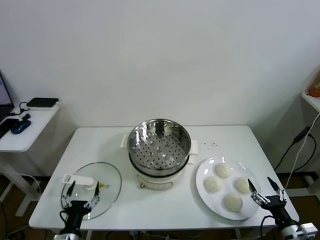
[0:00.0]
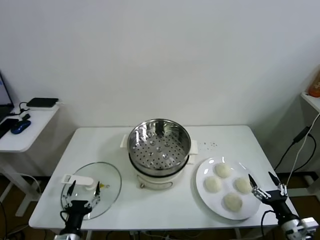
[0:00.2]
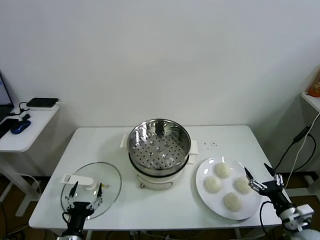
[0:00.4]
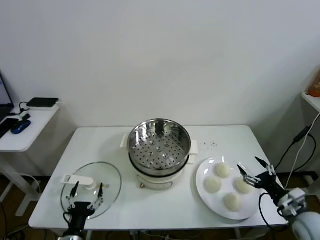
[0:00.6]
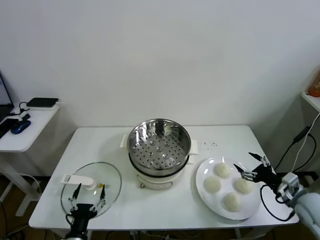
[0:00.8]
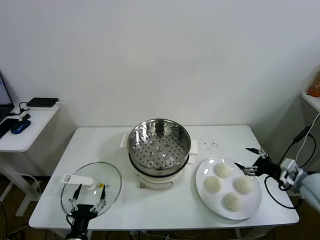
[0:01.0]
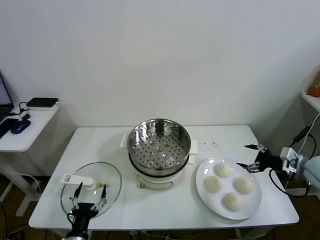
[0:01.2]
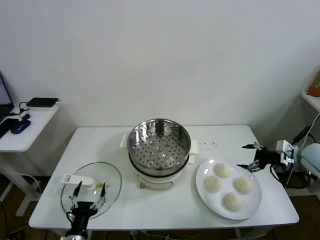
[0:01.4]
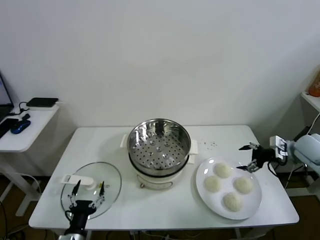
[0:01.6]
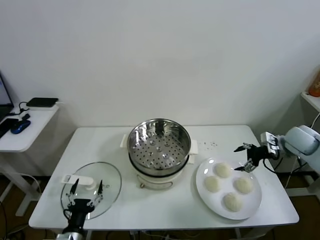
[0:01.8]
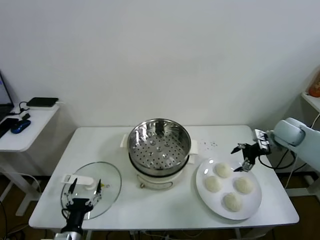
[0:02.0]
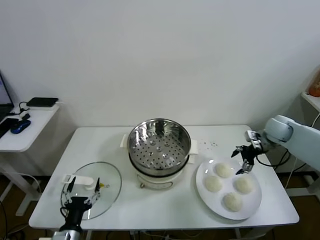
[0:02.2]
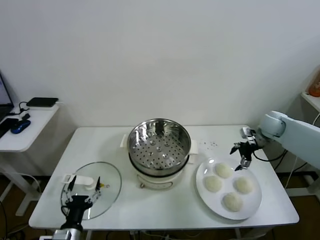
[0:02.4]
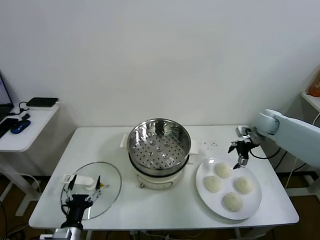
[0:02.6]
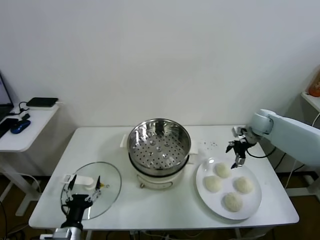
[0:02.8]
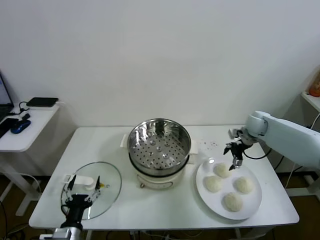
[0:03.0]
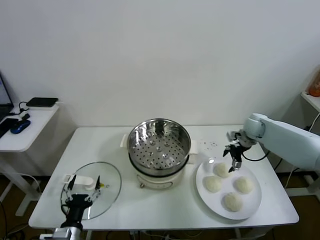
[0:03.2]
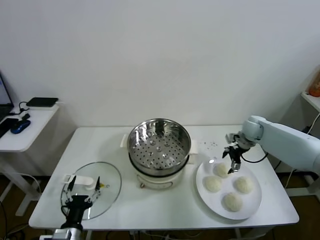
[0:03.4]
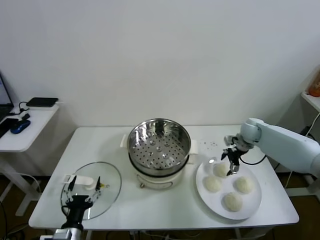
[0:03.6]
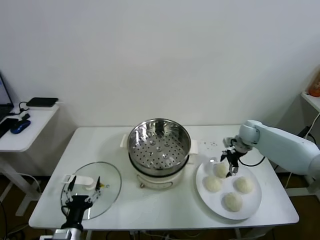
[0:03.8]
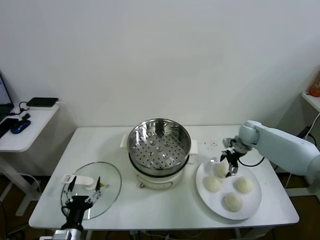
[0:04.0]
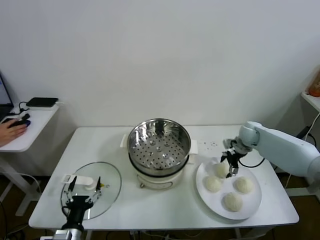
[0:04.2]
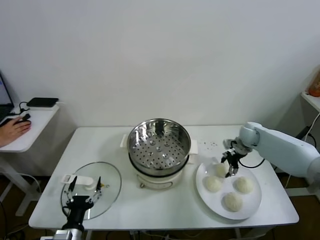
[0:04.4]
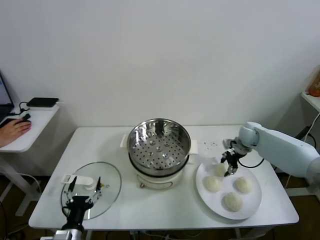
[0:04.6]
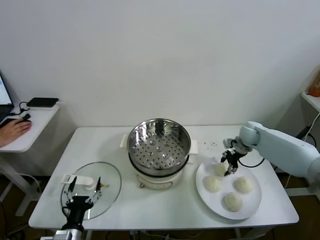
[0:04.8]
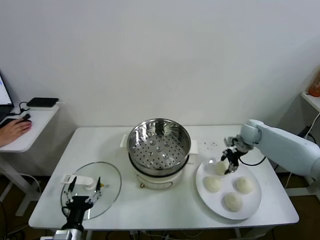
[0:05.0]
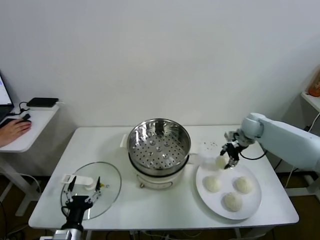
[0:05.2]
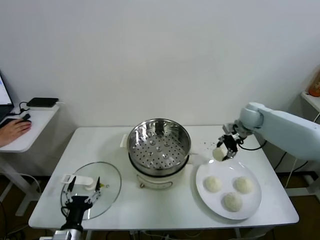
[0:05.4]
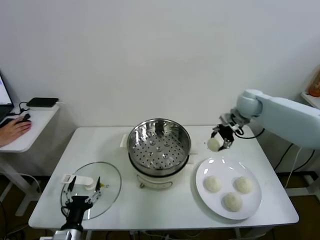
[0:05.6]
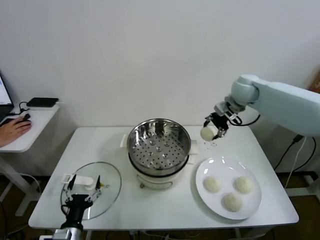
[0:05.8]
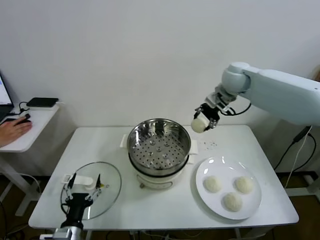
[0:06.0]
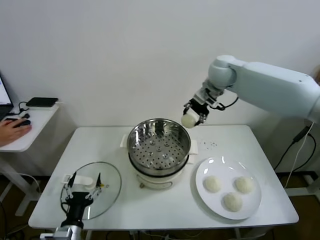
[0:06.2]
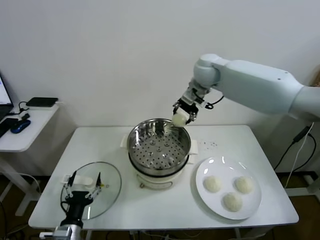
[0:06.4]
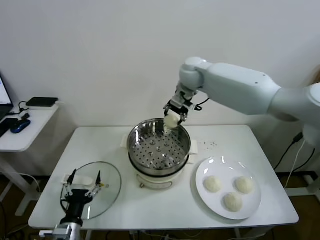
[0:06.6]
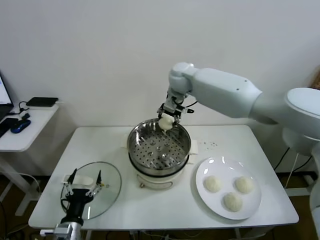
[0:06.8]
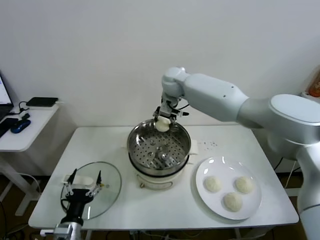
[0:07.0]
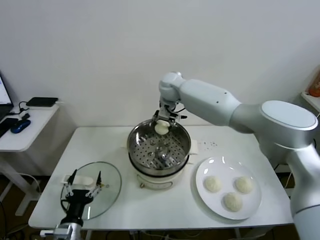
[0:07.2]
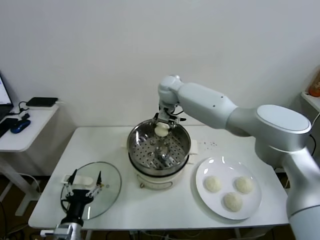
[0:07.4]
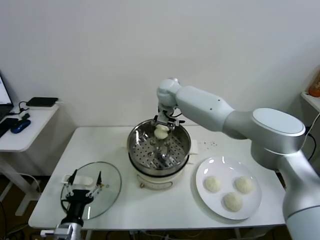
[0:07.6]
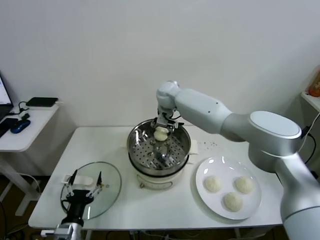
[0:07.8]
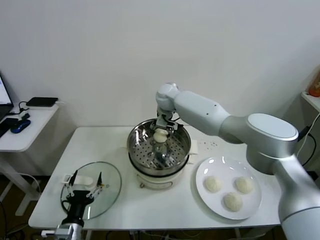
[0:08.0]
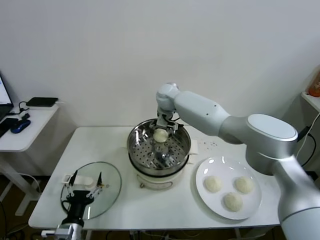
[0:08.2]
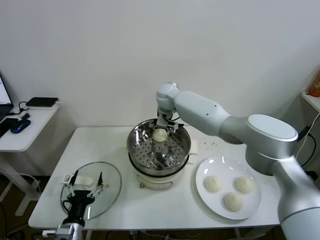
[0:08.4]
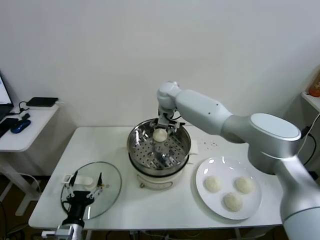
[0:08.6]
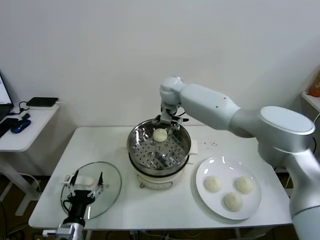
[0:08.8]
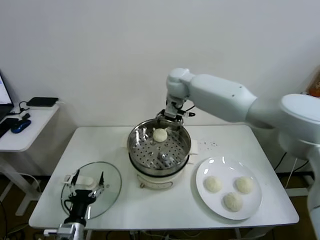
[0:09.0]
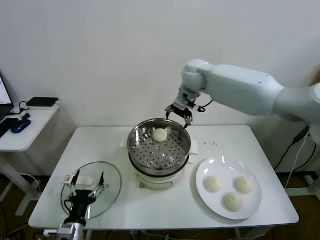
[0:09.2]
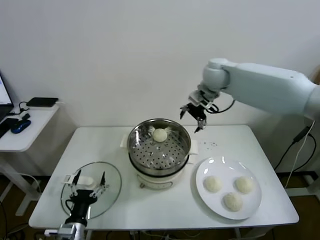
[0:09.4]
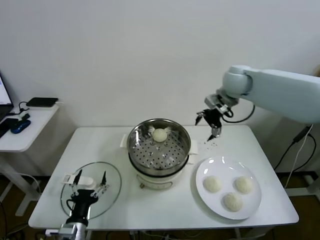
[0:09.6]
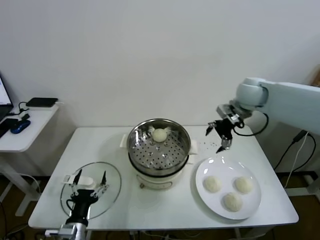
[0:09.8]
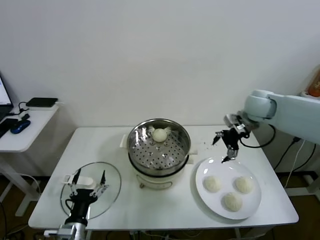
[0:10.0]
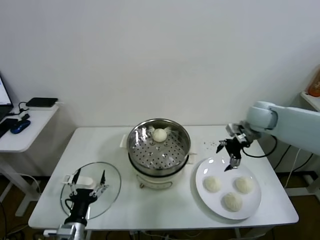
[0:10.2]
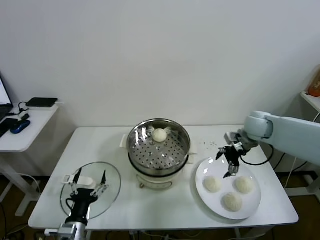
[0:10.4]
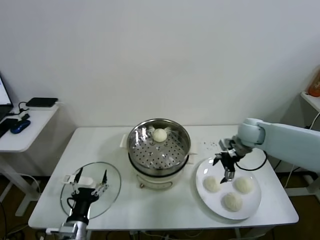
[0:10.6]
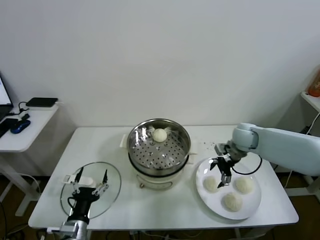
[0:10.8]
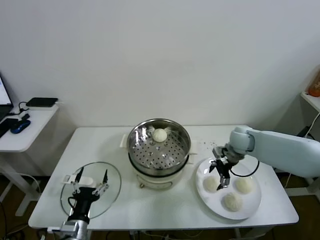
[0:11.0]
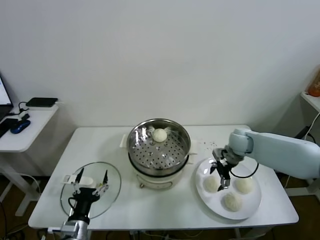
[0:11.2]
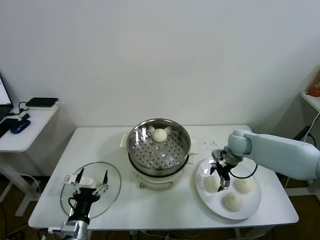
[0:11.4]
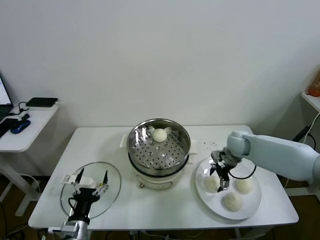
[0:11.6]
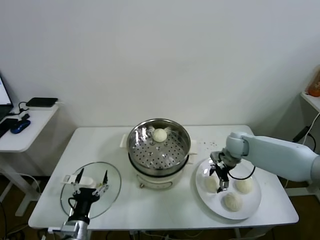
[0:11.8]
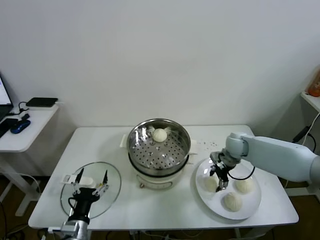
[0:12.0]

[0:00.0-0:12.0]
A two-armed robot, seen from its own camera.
Task of the whole recording: take steamed baozi put them in steamer.
Step, 0.0 to 4.6 s: Grasp the baozi in the plate with right gripper.
Step, 4.8 to 8.4 s: Place the baozi on the steamer with right gripper.
1.6 to 3.0 s: The right gripper goes some 15 cm forward and to the left.
3.0 to 4.4 s: The right gripper closes its fingers.
4.4 to 6.0 s: The right gripper goes about 30 cm upward and to the left.
6.0 to 7.6 s: The right gripper is displaced to the left and downward by about 20 cm.
7.6 to 9.0 s: The right gripper goes about 10 cm upward and to the right, and opens.
9.0 to 10.4 s: The right gripper is displaced to the right and downward by roughly 30 cm.
10.4 to 12.0 s: The right gripper goes approximately 10 cm downward, and closes its fingers.

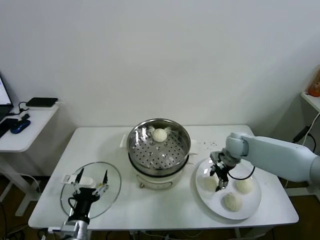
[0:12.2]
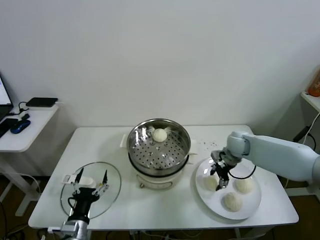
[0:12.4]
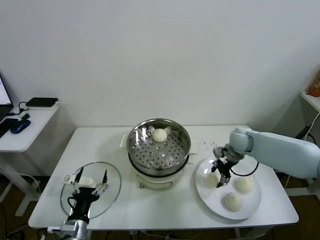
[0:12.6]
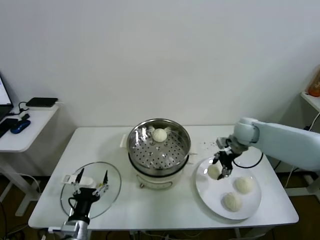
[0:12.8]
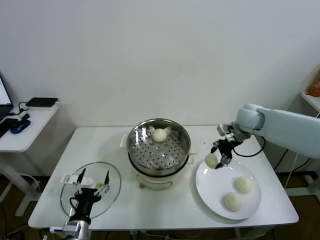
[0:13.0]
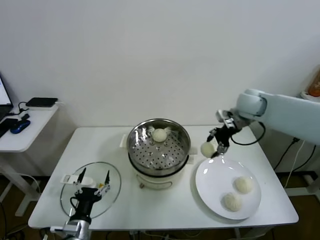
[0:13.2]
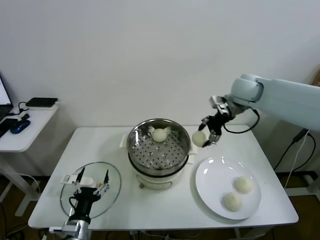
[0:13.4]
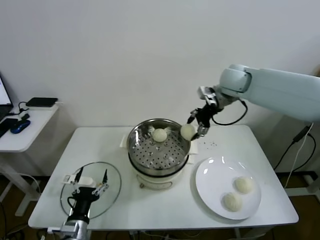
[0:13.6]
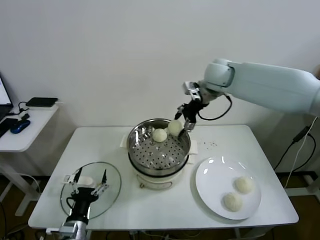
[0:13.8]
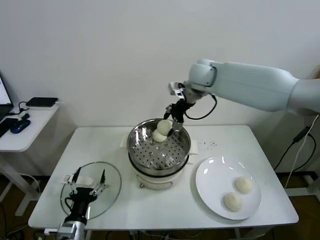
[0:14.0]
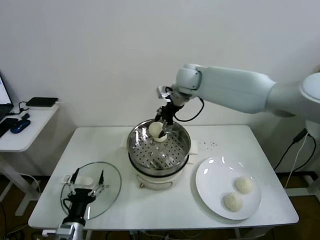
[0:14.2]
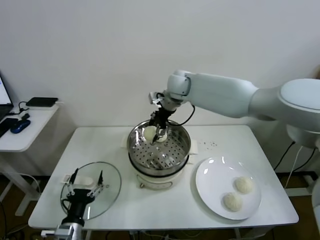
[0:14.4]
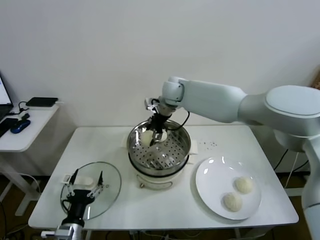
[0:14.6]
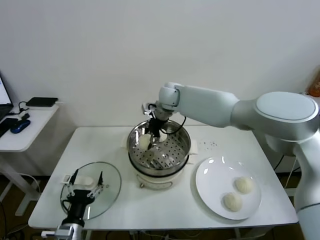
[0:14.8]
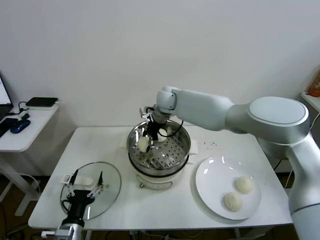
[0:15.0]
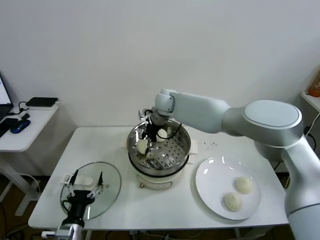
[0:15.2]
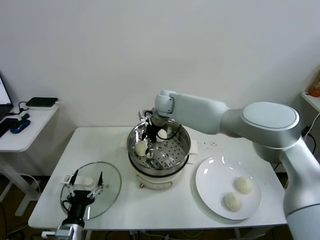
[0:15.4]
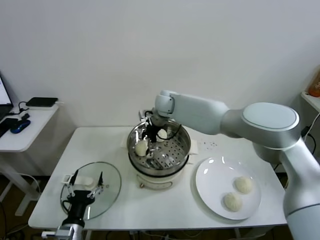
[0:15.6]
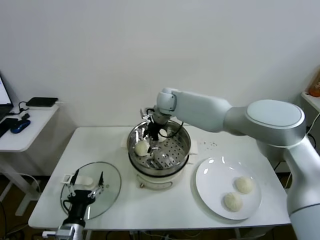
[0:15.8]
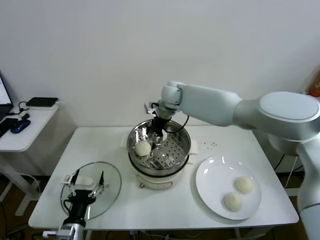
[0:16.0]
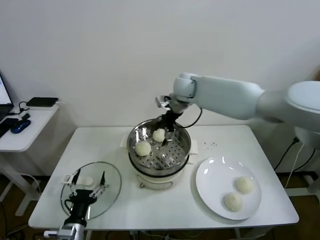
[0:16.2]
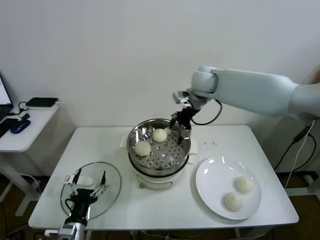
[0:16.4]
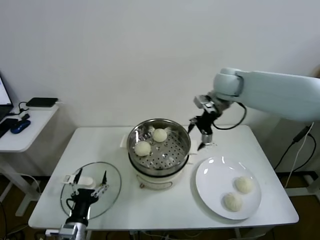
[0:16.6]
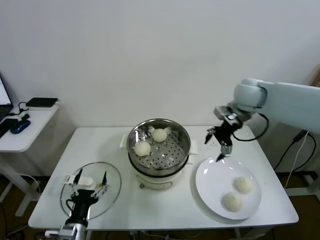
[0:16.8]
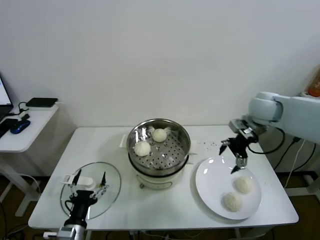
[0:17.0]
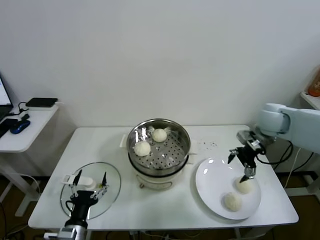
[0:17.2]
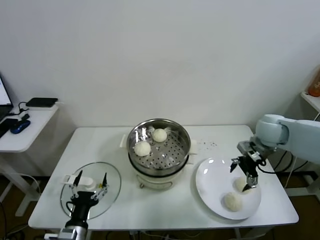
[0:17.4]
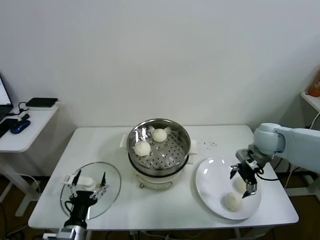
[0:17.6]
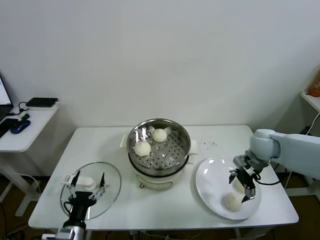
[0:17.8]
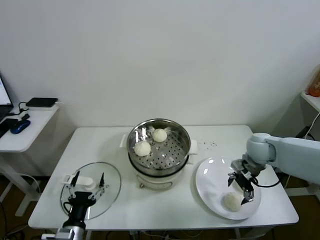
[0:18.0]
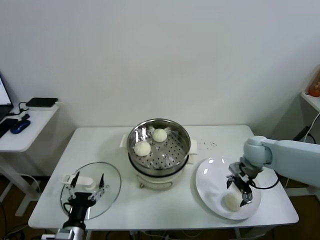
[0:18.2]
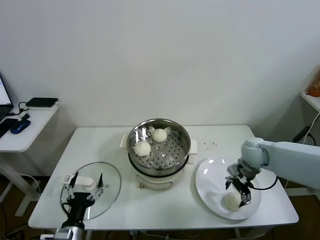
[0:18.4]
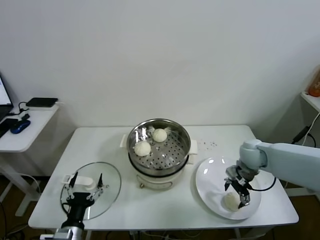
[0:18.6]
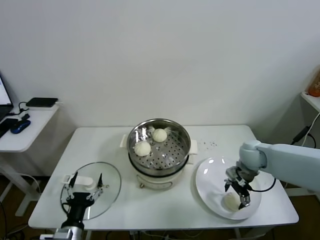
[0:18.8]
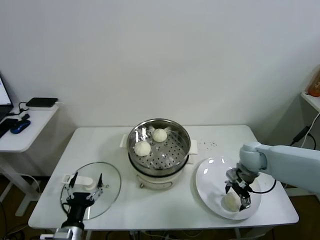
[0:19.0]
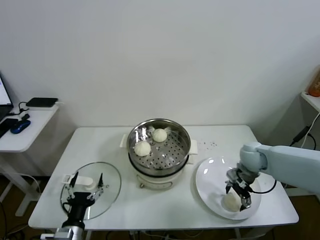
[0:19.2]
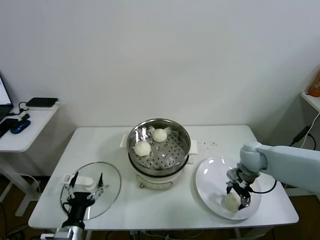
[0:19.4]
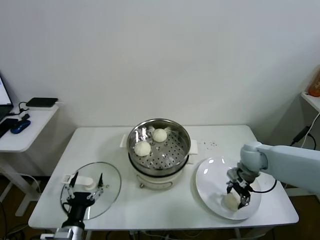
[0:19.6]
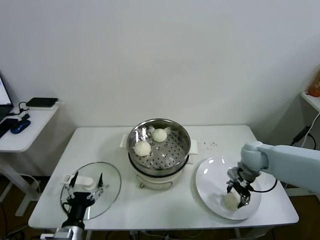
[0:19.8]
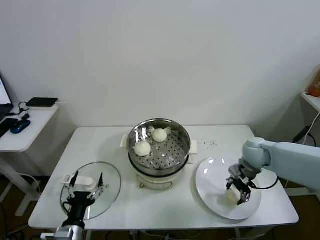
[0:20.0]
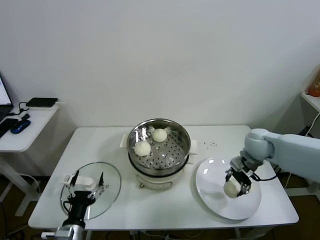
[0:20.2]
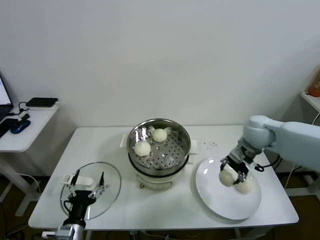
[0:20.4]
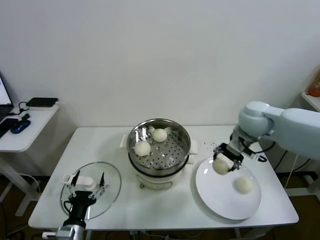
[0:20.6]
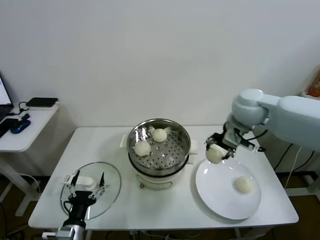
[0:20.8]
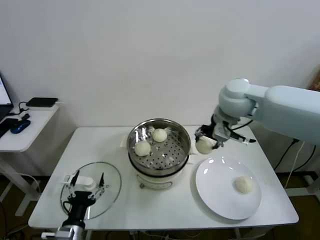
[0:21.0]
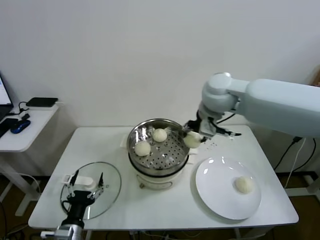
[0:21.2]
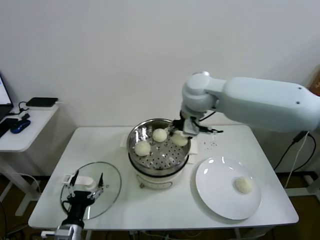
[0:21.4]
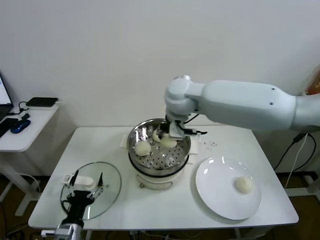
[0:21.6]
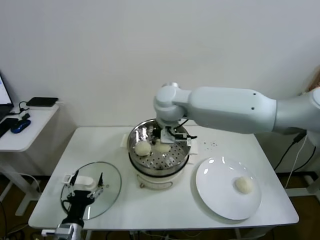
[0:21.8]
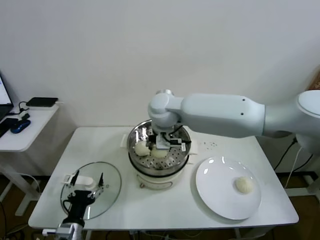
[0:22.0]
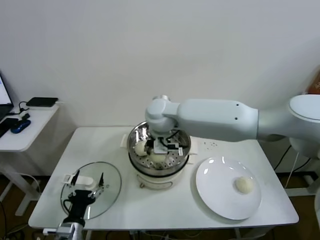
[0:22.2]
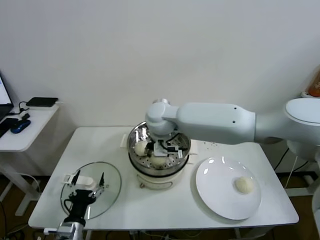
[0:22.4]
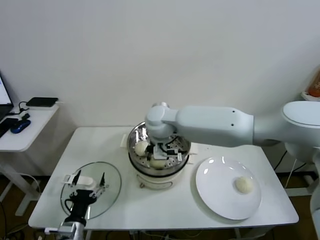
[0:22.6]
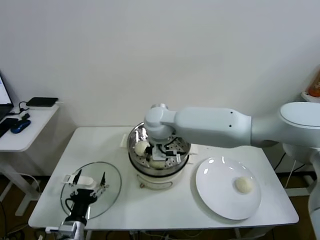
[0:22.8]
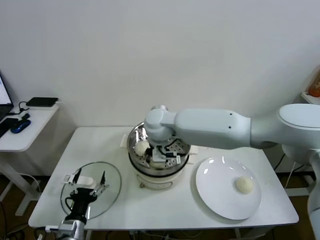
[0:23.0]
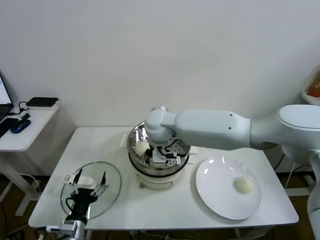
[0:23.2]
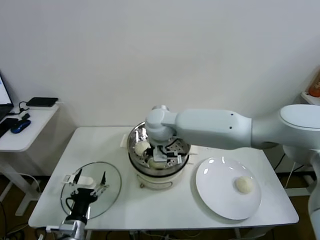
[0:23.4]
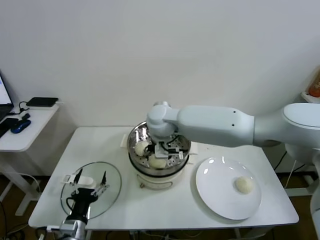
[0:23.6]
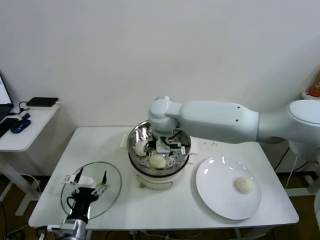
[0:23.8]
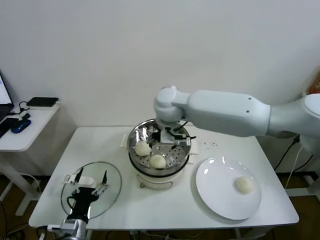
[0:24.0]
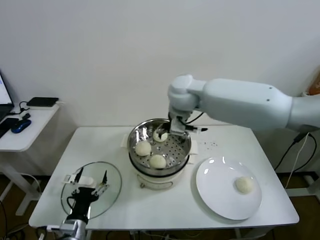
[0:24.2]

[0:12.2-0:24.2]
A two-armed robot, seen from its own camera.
Task of the whole recording: take steamed baozi put them in steamer.
Step, 12.4 to 15.8 s: Place the baozi on the steamer with right gripper.
Step, 16.0 to 19.6 s: Grasp the baozi in the plate with right gripper.
Step, 20.0 to 23.4 s: Place the baozi on the steamer with right gripper.
12.2 to 13.8 s: The right gripper shifts about 30 cm upward and to the left.
13.8 to 15.2 s: The right gripper heads to the left and downward, covering approximately 20 cm.
15.2 to 16.6 s: The right gripper goes roughly 25 cm to the right and upward, and opens its fingers.
16.6 to 18.2 s: The right gripper heads downward, to the right and backward, covering about 25 cm.
18.2 to 19.8 s: The right gripper closes up.
19.8 to 21.2 s: The right gripper travels upward and to the left by roughly 30 cm.
21.2 to 22.6 s: The right gripper moves to the left and downward, approximately 20 cm.
22.6 to 24.2 s: The right gripper is displaced upward and to the right by roughly 10 cm, and opens.
